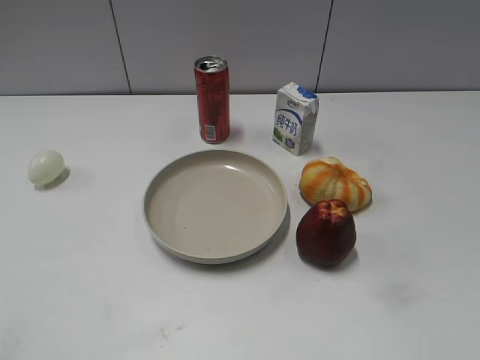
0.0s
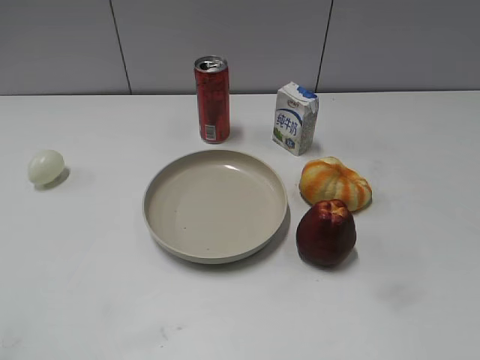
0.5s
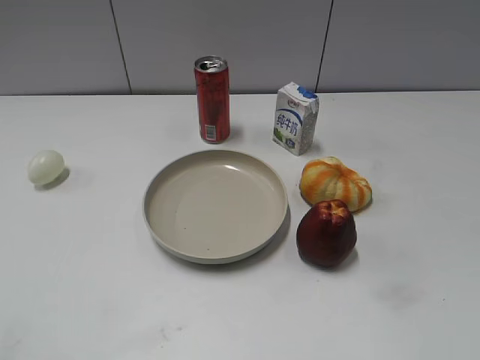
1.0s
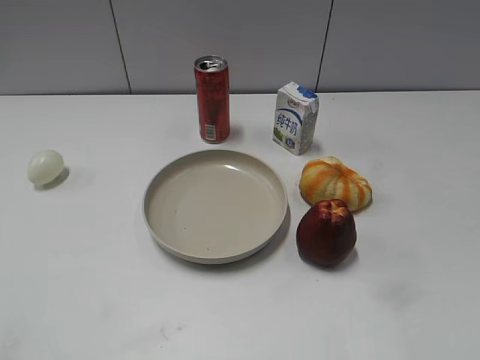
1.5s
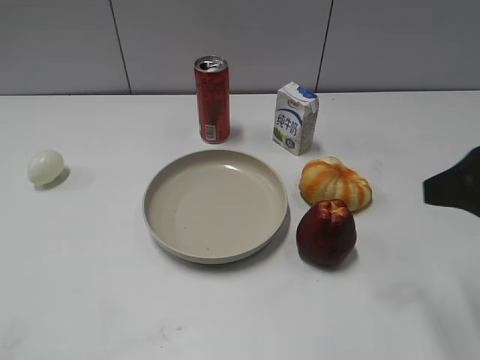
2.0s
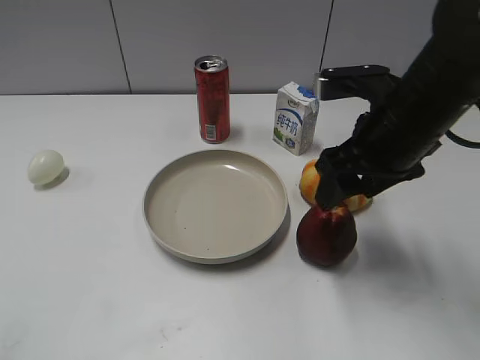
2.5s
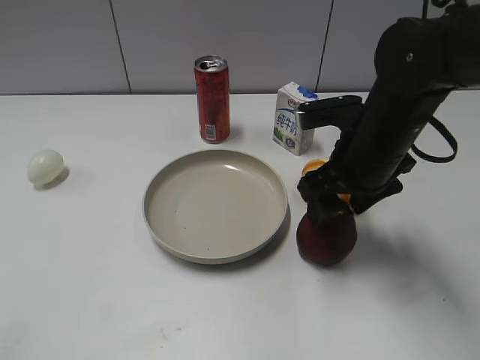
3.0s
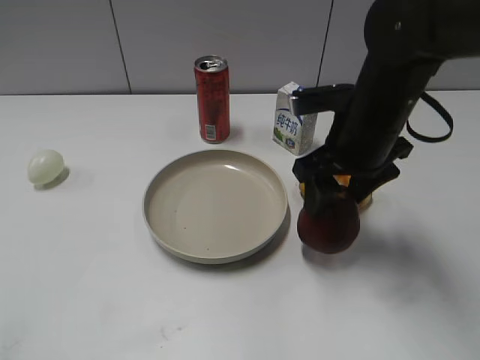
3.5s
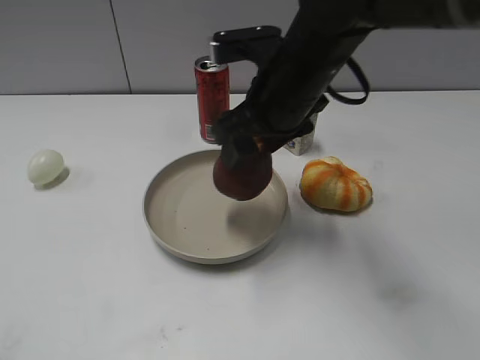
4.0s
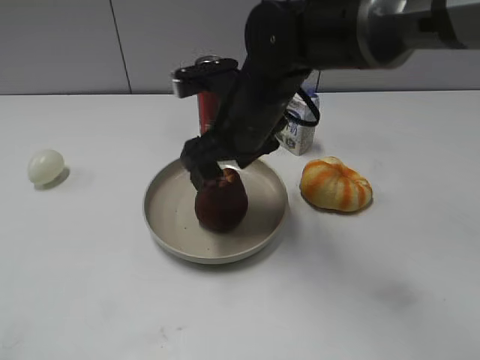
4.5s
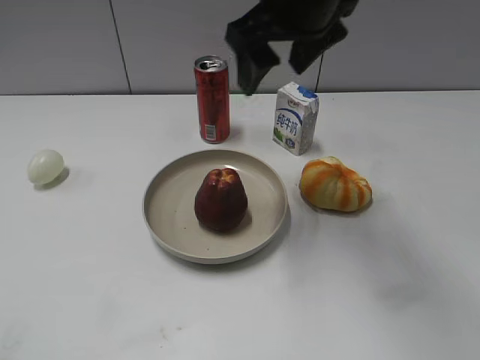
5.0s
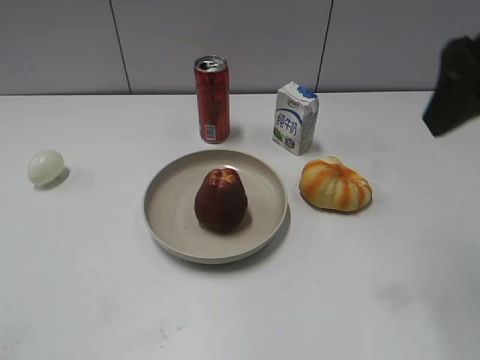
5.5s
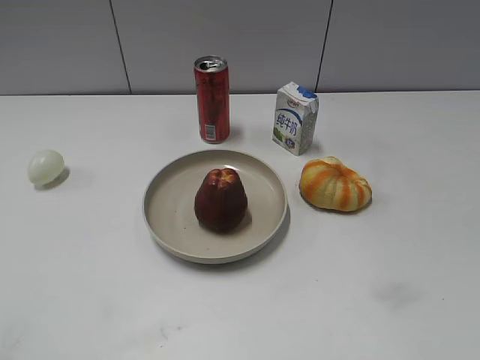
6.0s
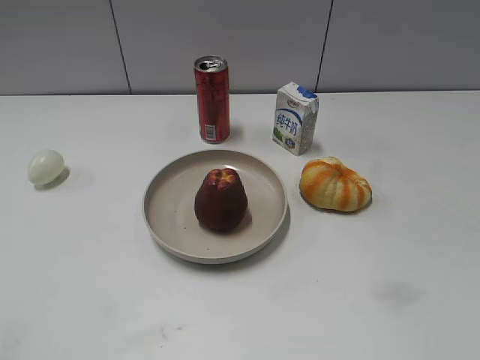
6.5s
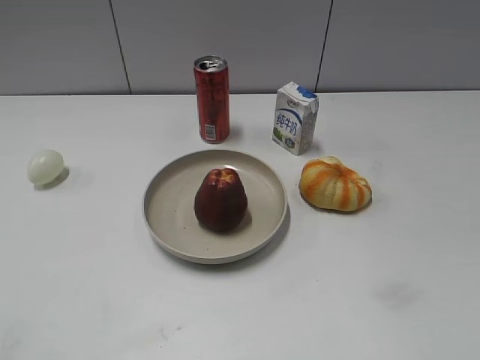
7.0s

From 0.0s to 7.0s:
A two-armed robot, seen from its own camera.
Step, from 1.0s to 3.0s: Grasp the apple with right gripper.
Step, from 3.5s to 4.5s: Place the apple on the plate with right gripper.
From 2.0s to 3.5s: The right gripper travels forward, to the left and downward by roughly 20 cm.
From 3.5s to 5.0s: The right gripper heads upward and to the left, covering some 15 cm, and opens.
From 5.0s to 7.0s: The right gripper goes about 40 cm backward and to the right, and closes.
